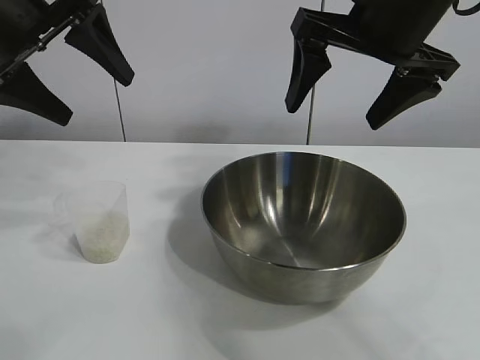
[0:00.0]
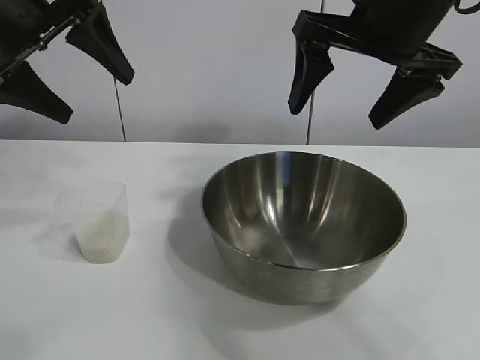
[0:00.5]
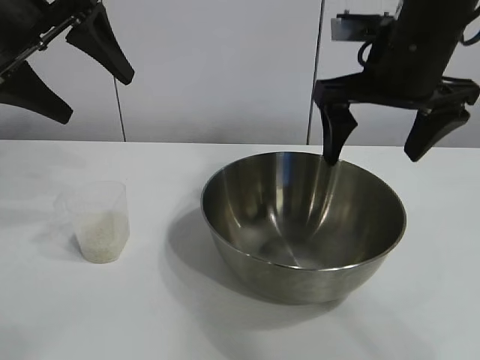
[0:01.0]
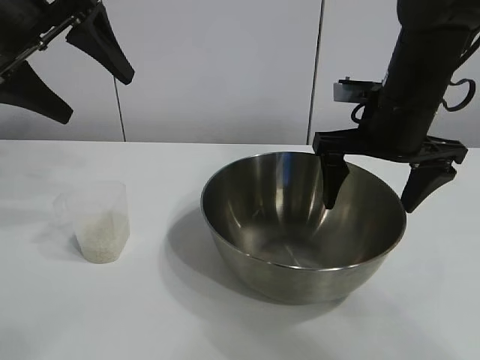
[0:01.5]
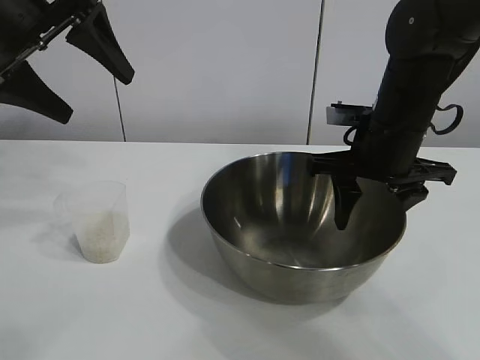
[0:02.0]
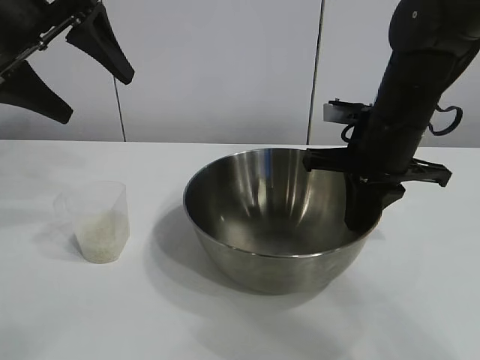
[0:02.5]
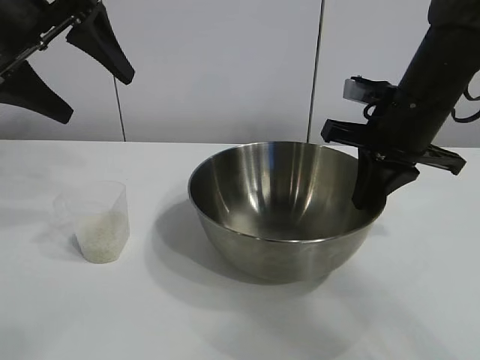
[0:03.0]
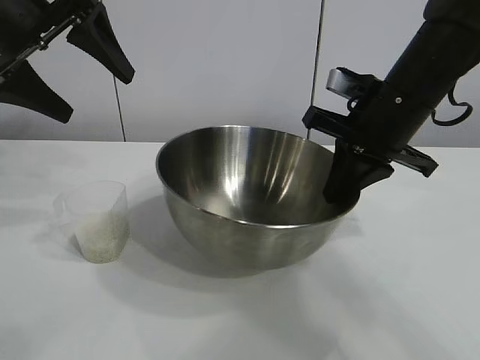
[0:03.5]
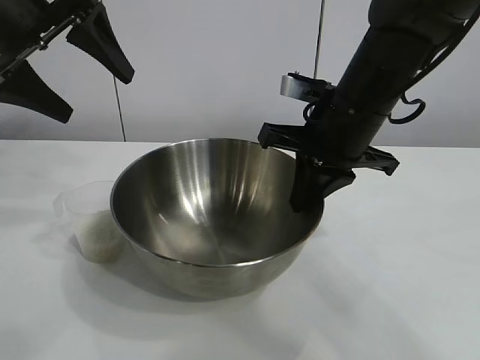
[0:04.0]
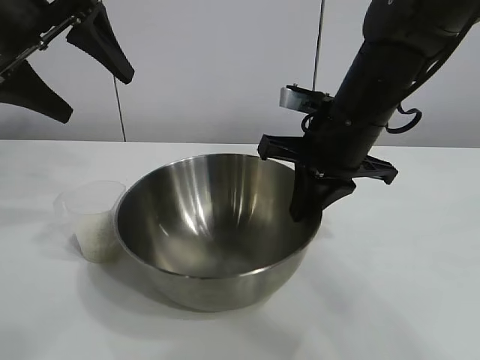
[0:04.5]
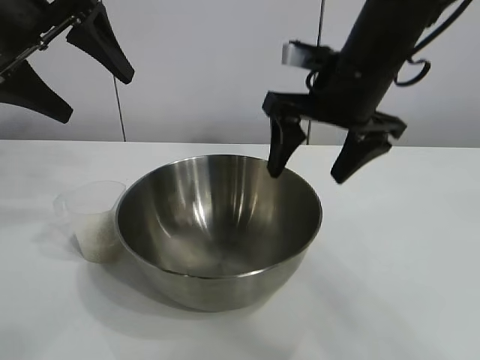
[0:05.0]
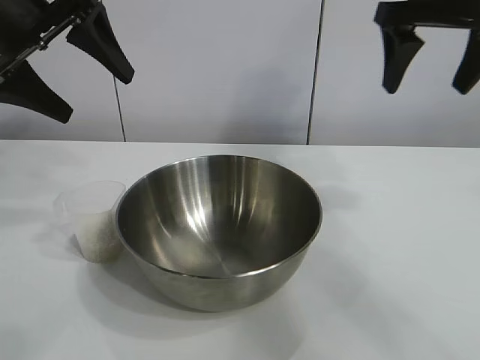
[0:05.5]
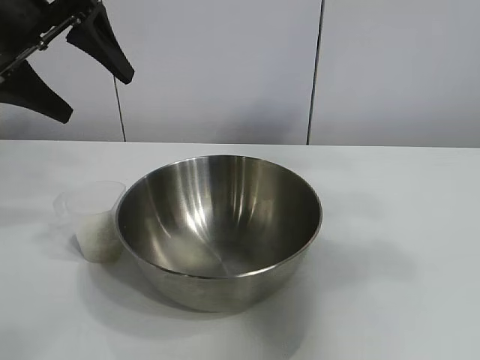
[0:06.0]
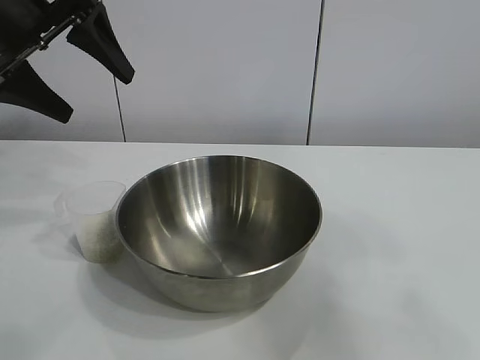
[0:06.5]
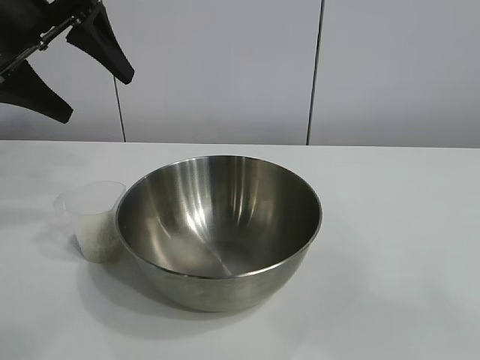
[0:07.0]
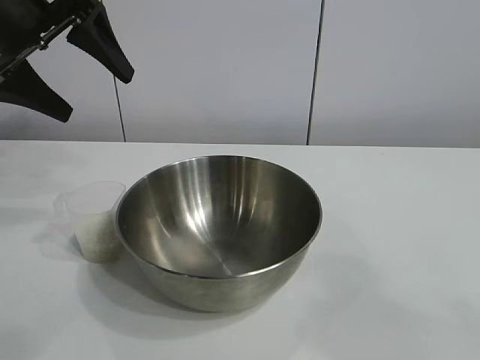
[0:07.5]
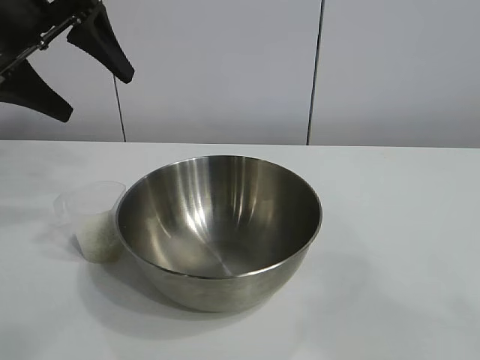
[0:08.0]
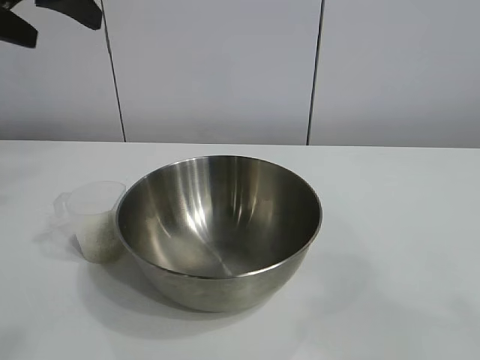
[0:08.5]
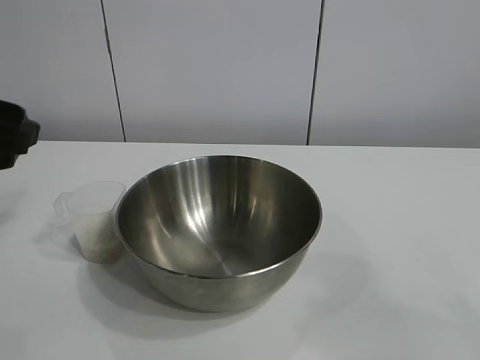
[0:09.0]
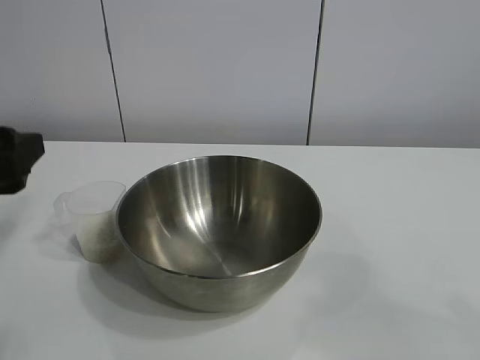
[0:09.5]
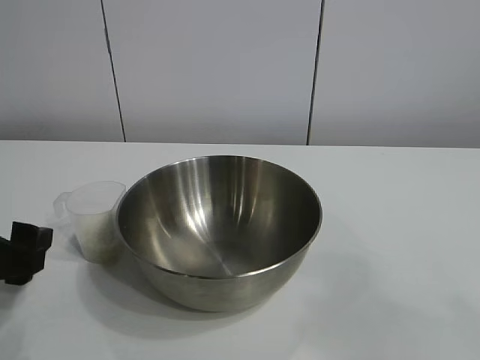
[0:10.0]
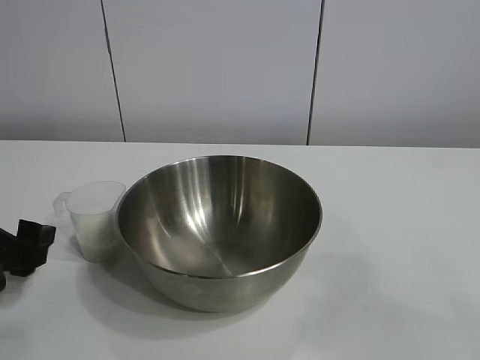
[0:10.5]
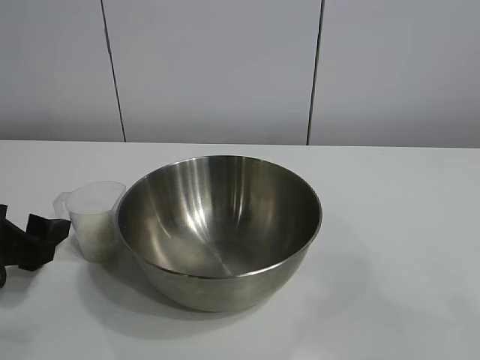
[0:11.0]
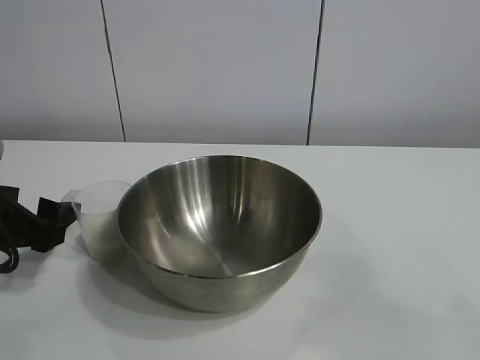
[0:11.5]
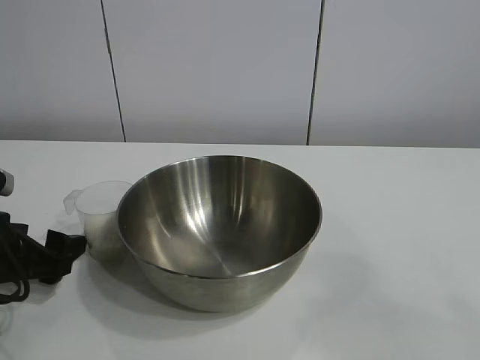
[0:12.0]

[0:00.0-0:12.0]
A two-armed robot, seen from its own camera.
Task of the whole recording: the right gripper grasp the rice container and place it in the center of the table, the left gripper grasp the rice scoop and pour the rice into the rice container.
Step, 0:01.0 to 0:04.5: Move the bowl in the center of view with right gripper.

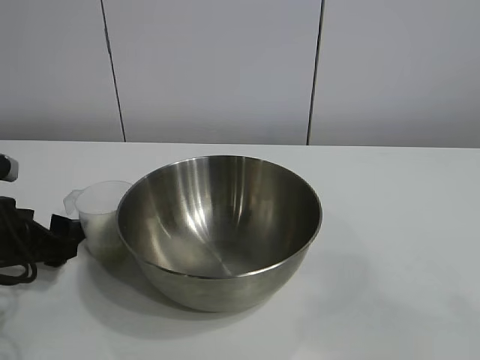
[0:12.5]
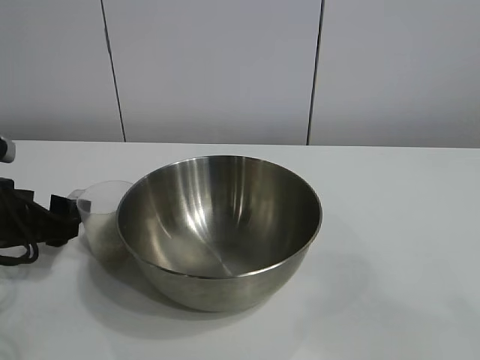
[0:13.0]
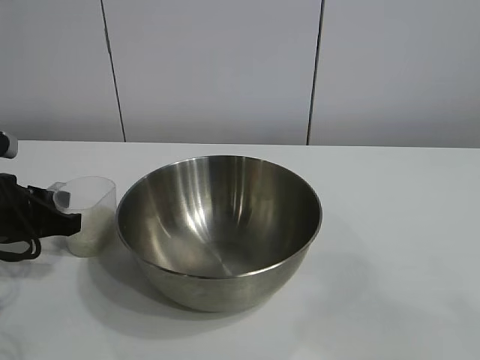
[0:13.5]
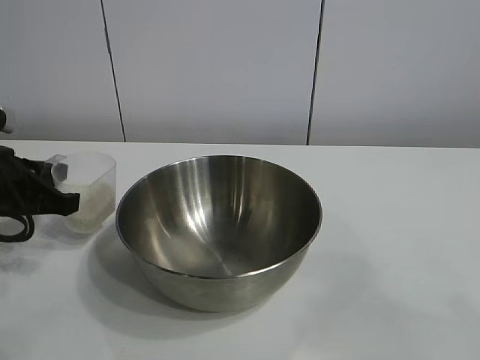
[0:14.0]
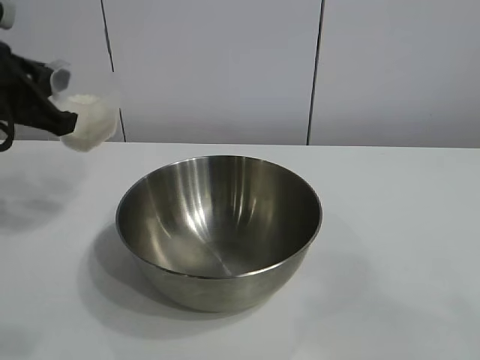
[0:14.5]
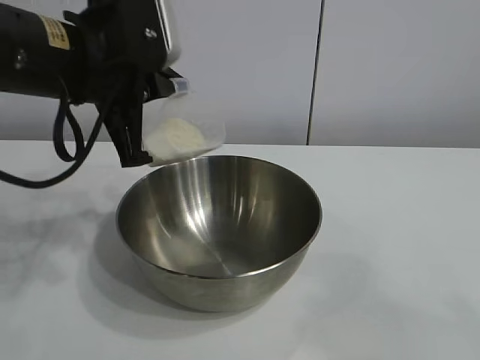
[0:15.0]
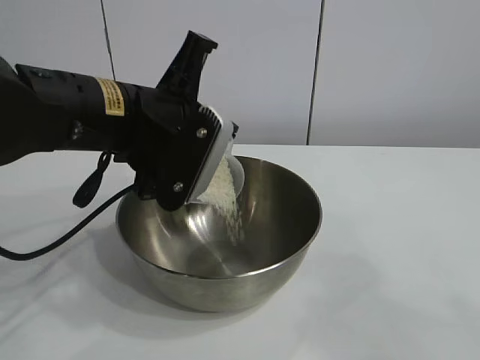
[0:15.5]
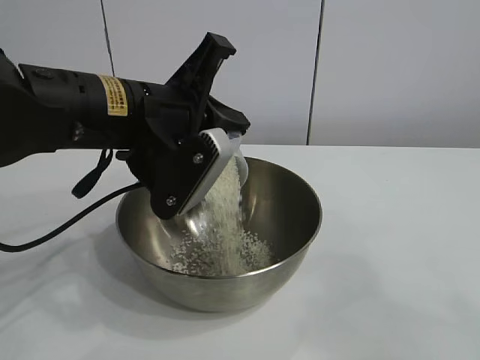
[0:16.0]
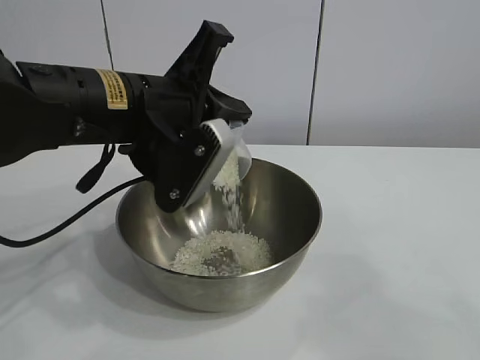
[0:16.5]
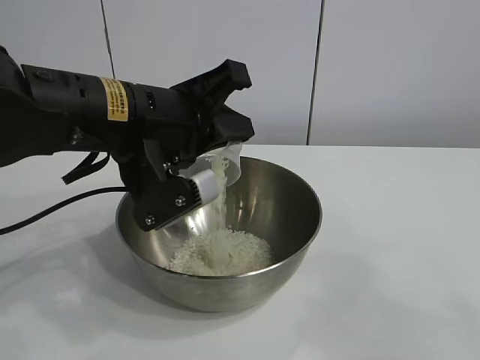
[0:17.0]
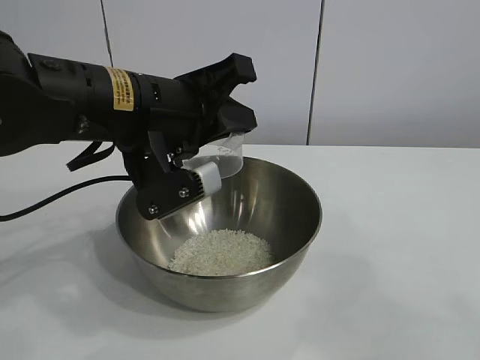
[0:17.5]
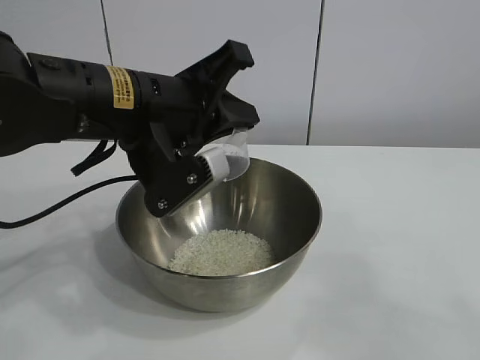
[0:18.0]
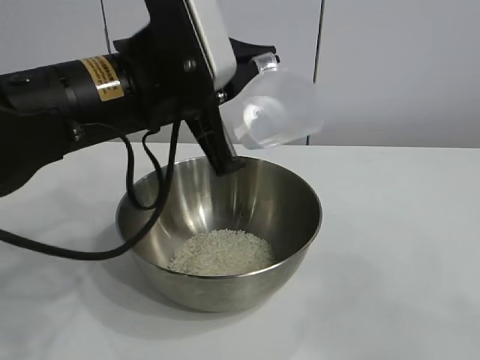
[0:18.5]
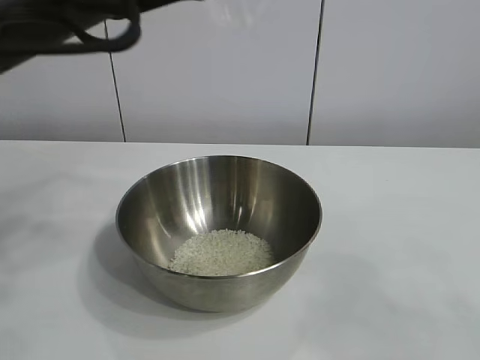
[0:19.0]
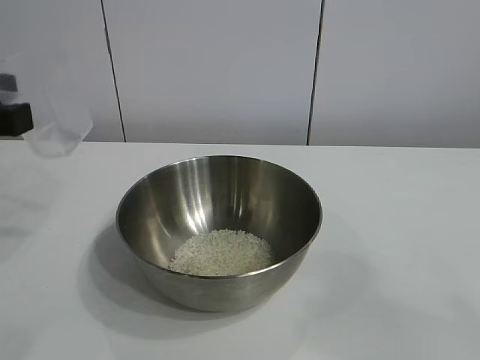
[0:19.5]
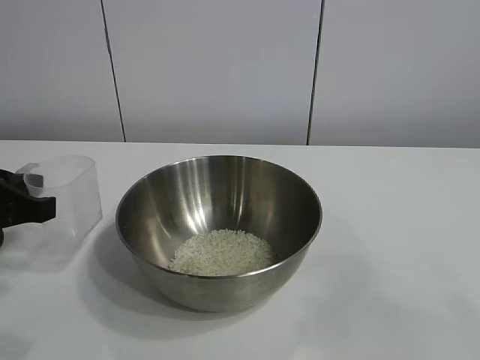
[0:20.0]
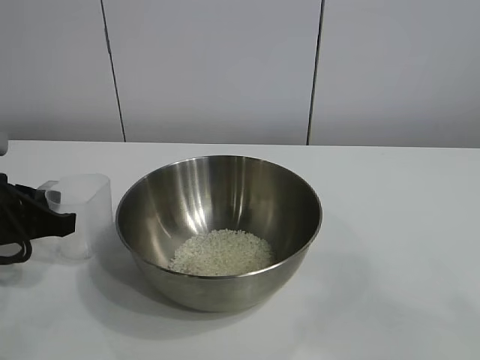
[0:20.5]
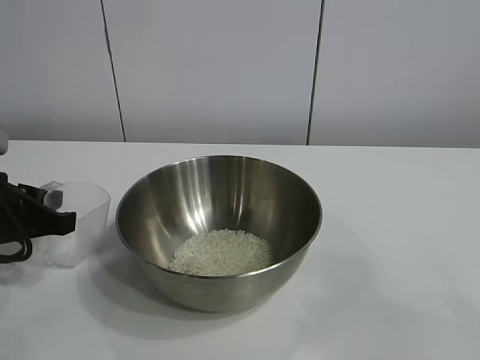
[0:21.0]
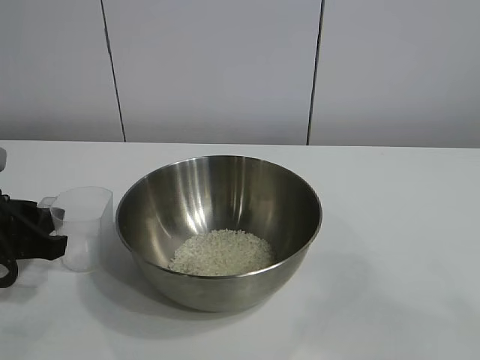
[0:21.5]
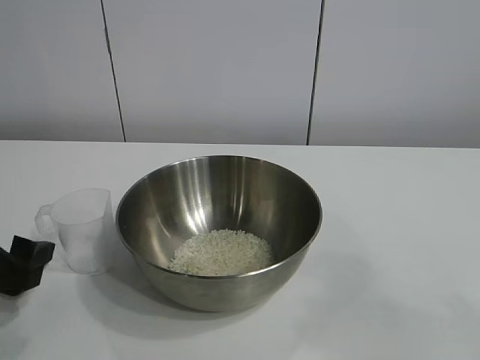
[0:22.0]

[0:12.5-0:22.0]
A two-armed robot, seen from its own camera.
Task of the whole recording: the right gripper grasp the rice container and place it in the center of the table, the left gripper grasp the rice scoop and pour the rice into the rice container.
Step, 0:14.0 to 0:17.0: Pour the rice from the cup into the bowl with the left gripper.
Step, 0:17.5 to 0:21.0: Place the cup on the table with the left gripper.

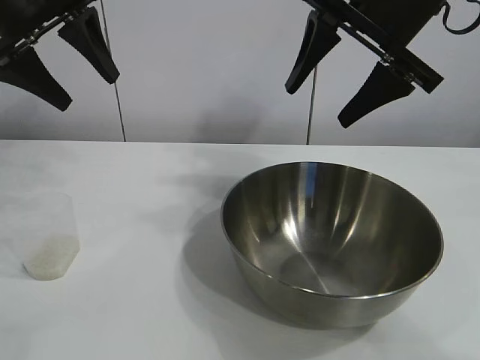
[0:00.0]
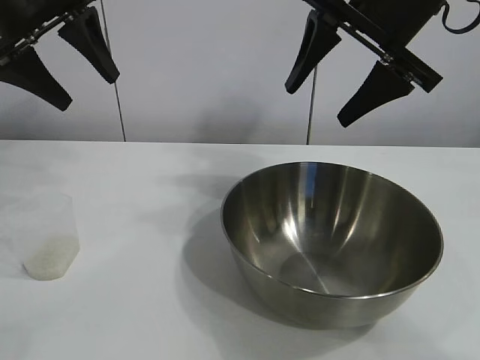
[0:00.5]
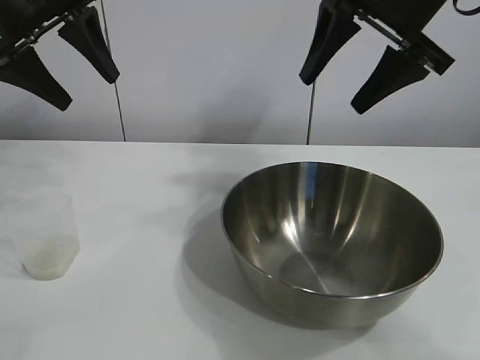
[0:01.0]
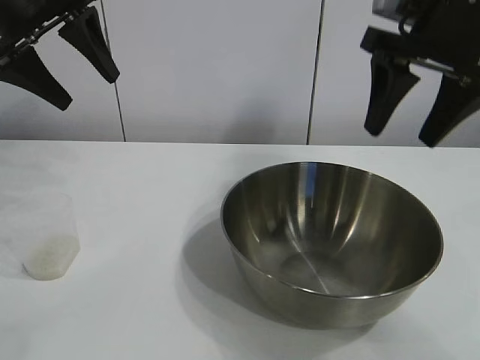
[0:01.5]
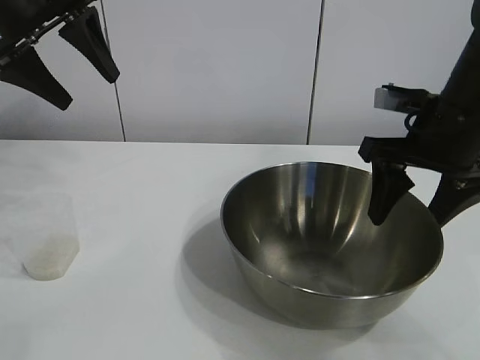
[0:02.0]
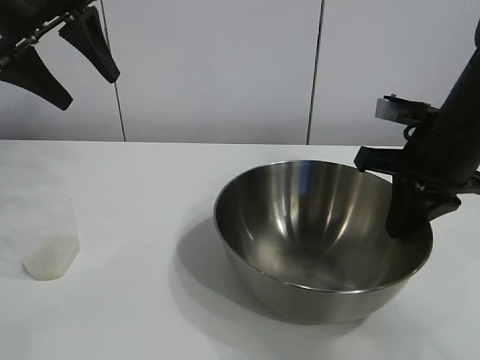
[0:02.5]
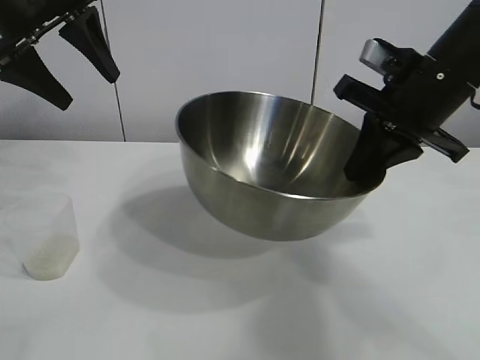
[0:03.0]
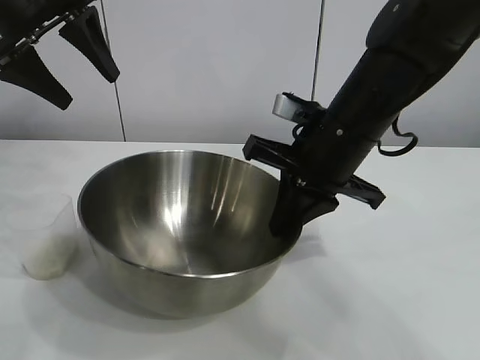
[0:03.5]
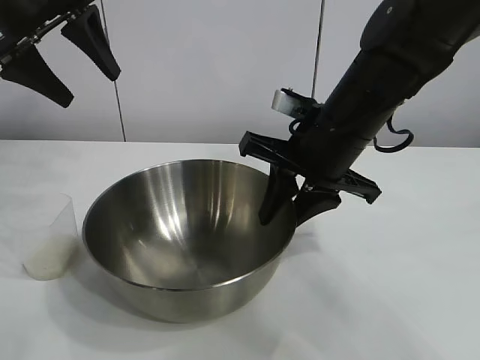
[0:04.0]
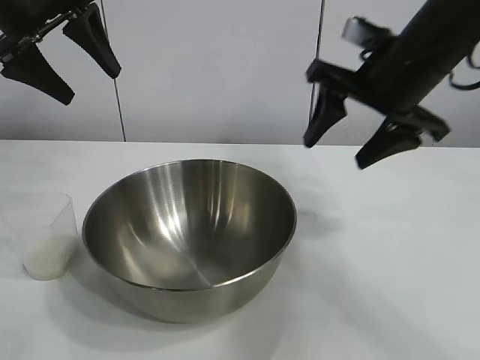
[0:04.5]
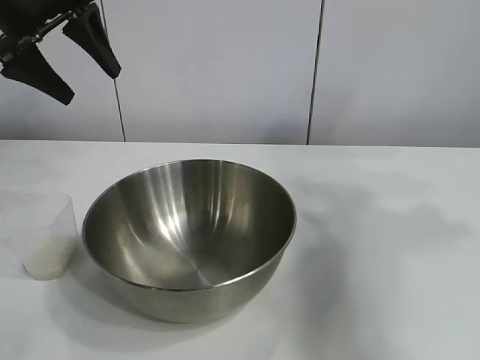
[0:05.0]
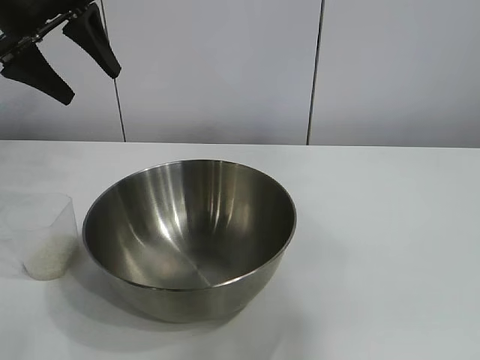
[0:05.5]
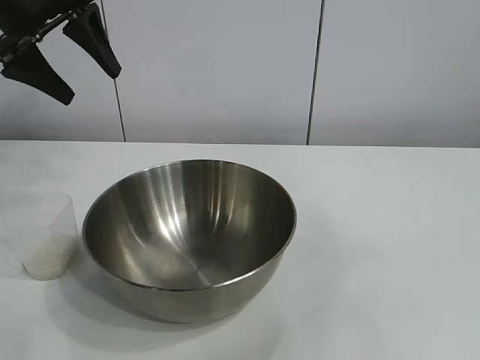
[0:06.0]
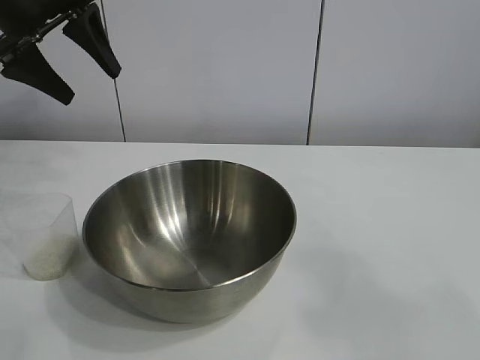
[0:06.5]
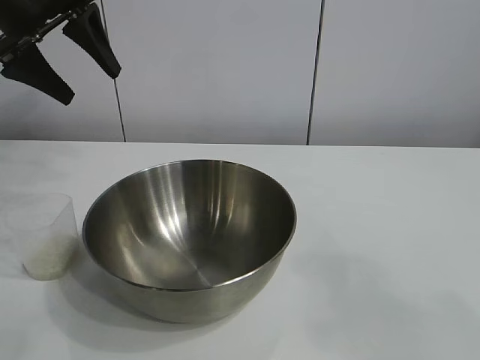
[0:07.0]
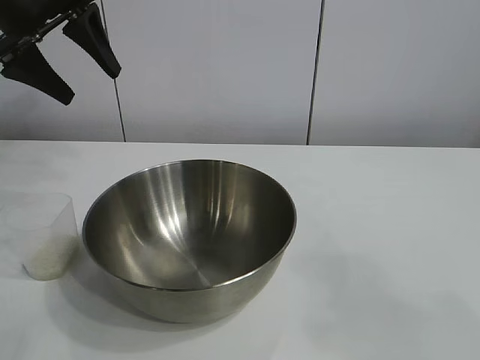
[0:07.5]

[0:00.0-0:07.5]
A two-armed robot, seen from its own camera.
Task of the whole recording: the right gripper grasp the rice container and place it in the center of the table, the left gripper grasp the rice scoop and pour the rice into the rice container.
Step, 0:01.0 to 0:03.5: Move the bowl in the center of view with right gripper.